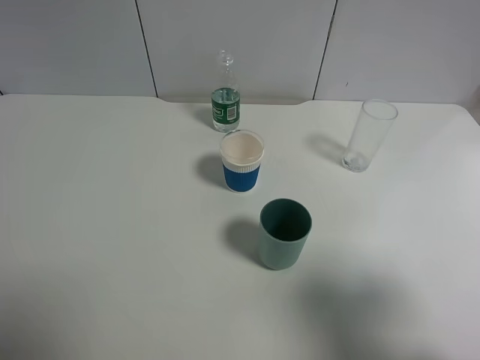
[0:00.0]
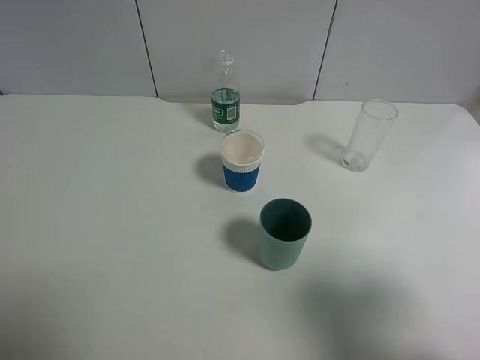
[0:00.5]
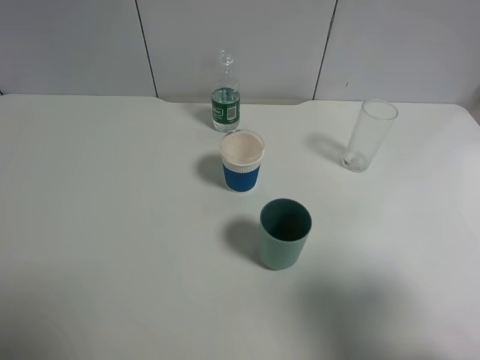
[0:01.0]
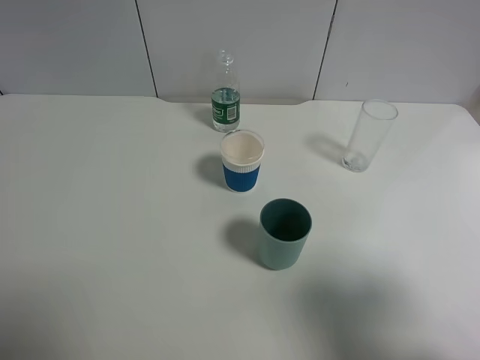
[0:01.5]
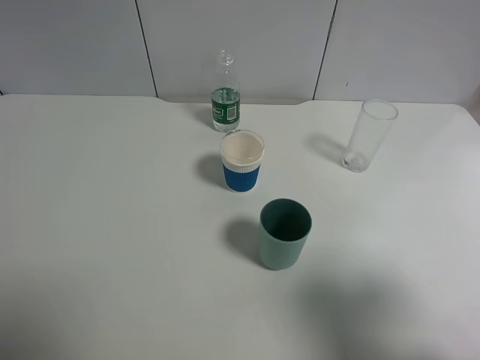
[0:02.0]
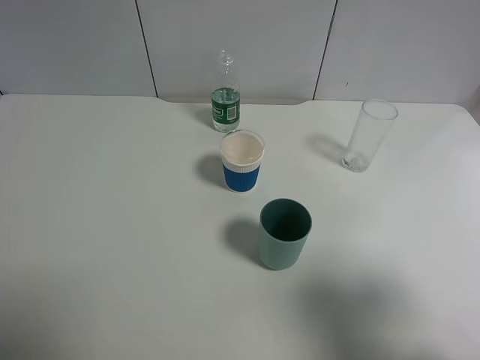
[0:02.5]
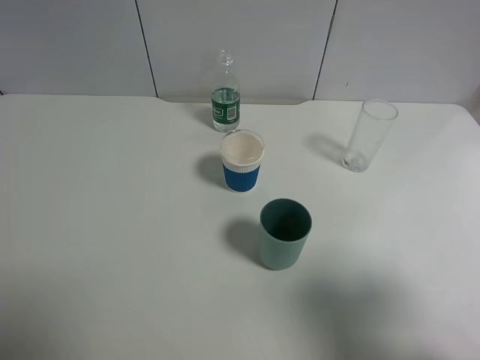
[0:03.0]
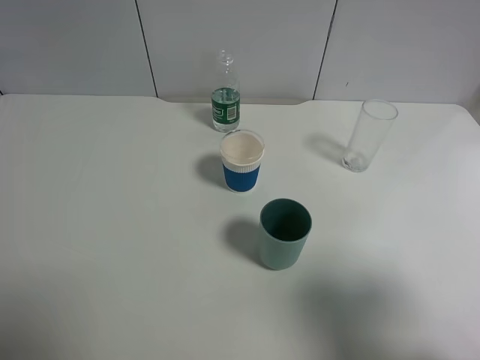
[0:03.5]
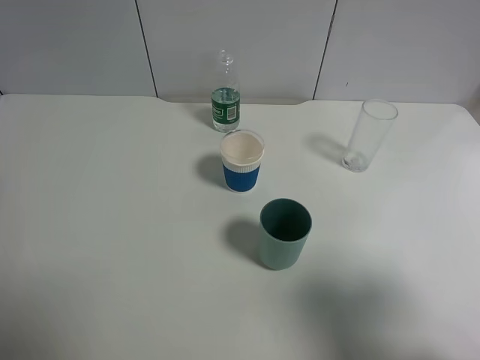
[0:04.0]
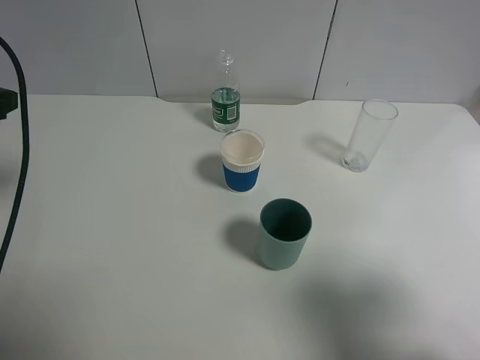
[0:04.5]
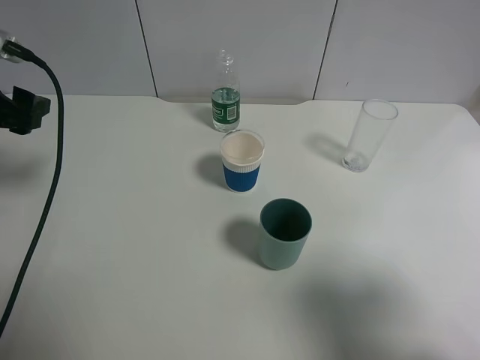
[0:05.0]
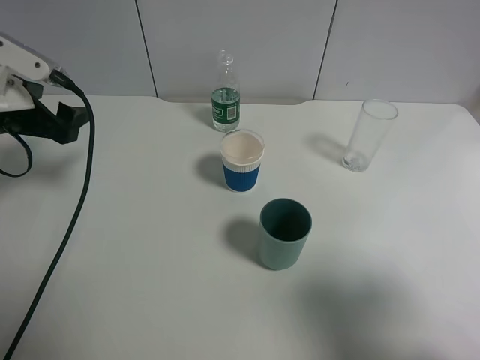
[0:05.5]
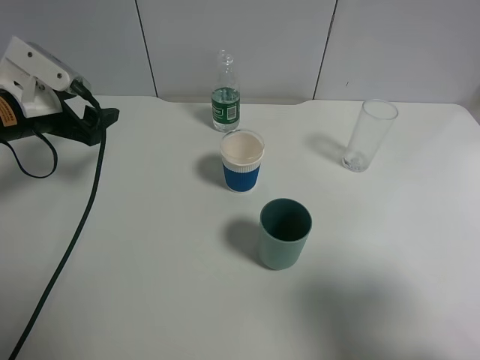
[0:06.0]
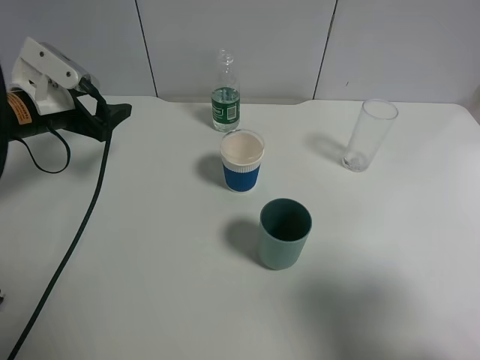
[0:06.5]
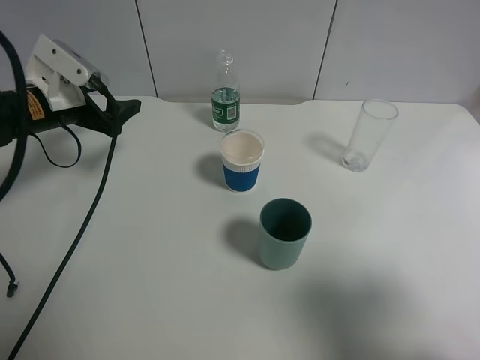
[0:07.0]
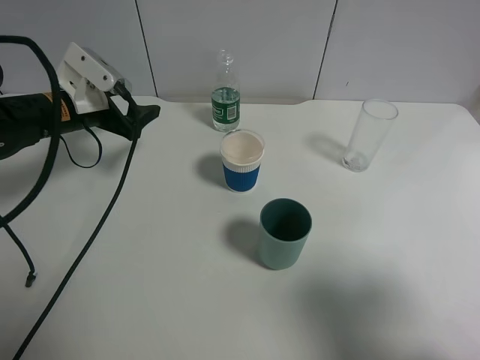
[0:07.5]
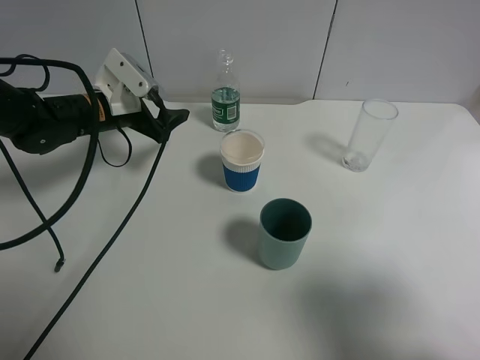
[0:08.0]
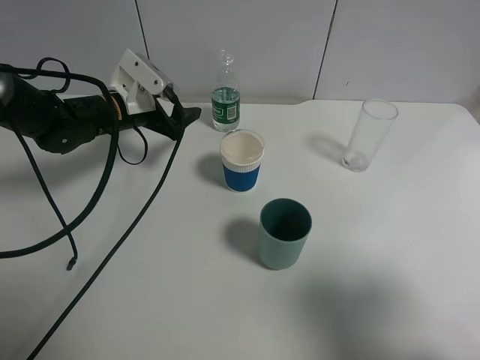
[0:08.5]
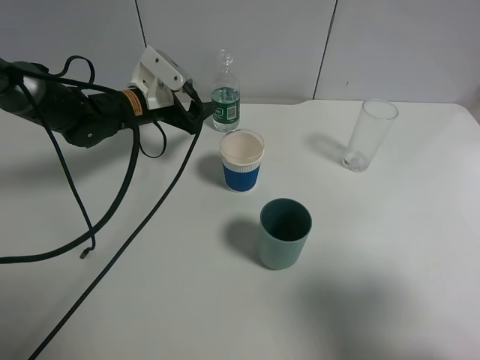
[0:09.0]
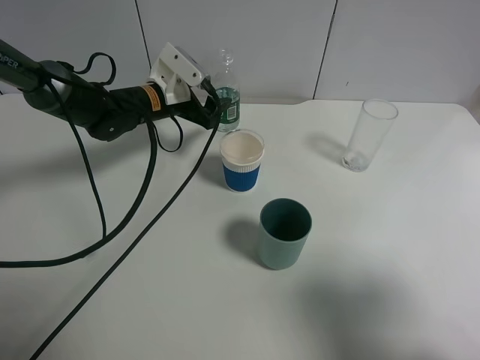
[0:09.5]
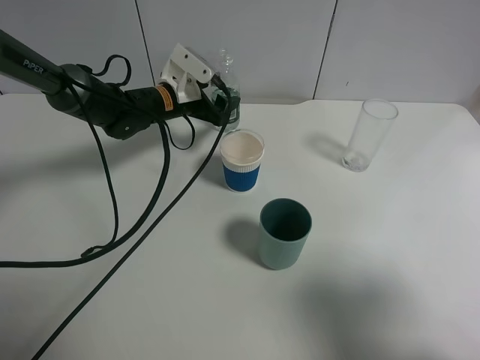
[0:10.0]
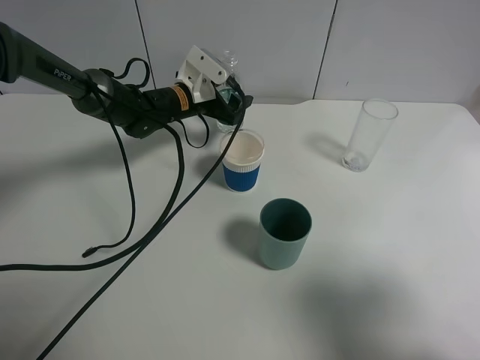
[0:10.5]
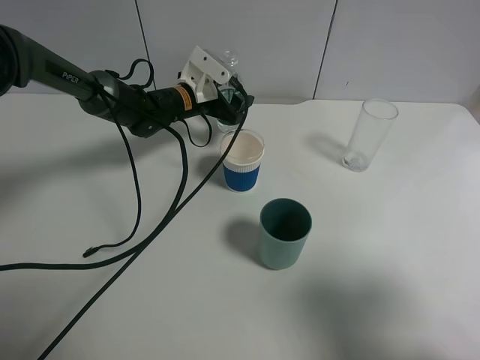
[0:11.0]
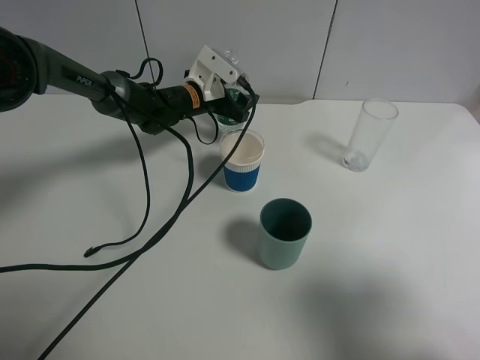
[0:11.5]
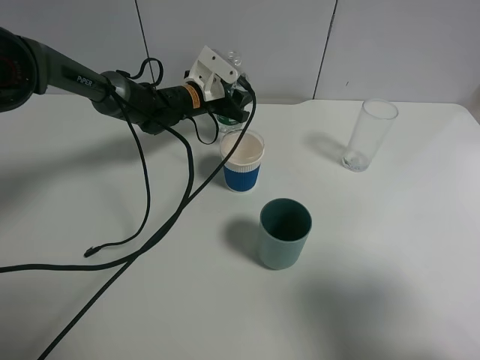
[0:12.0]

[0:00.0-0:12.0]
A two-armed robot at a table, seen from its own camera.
Task of the whole recording: use a gripper to hold the bottle of the drink and pour it into a random cup.
Step, 0.0 to 12.0 s: Grasp the mineral water bottle with the left gripper.
0.0 to 2.0 s: Both grippers stay about where they are.
4.0 to 6.0 s: The left gripper shifts some 20 cm forward and downward.
6.0 to 8.0 s: The left gripper goes approximately 10 cm to the right and forward.
8.0 to 10.0 s: The left gripper goes about 10 cm to the right and forward.
10.0 to 12.0 s: The left gripper ends up roughly 5 cm from where it was, and closes its fingers.

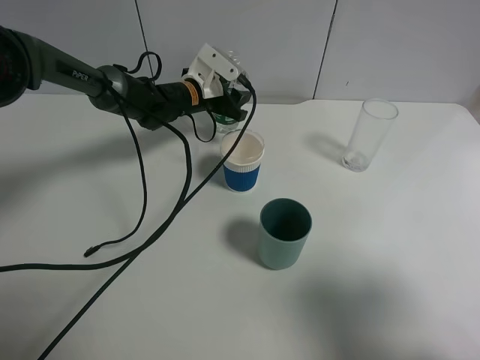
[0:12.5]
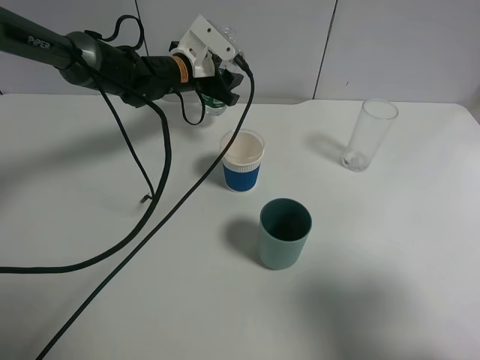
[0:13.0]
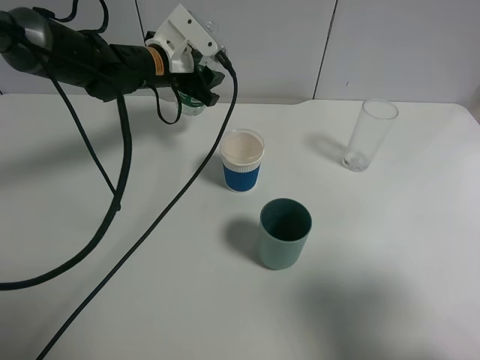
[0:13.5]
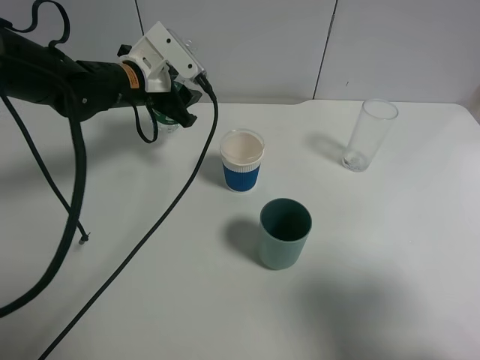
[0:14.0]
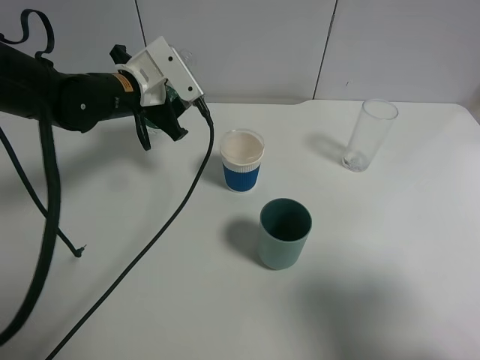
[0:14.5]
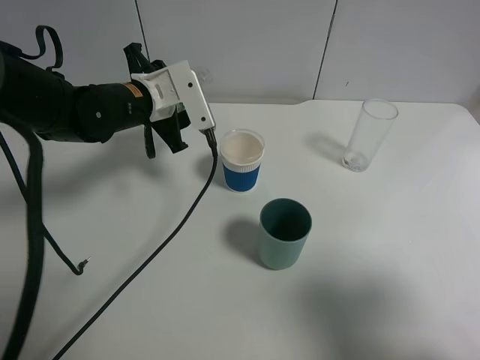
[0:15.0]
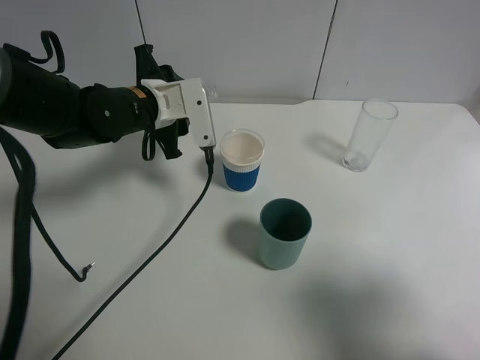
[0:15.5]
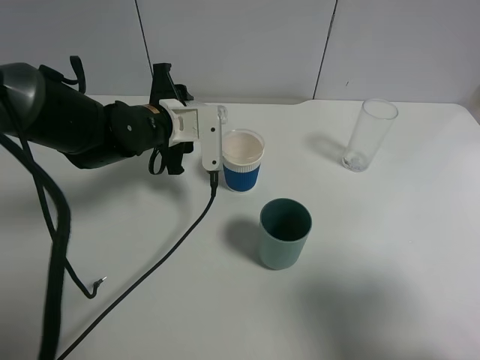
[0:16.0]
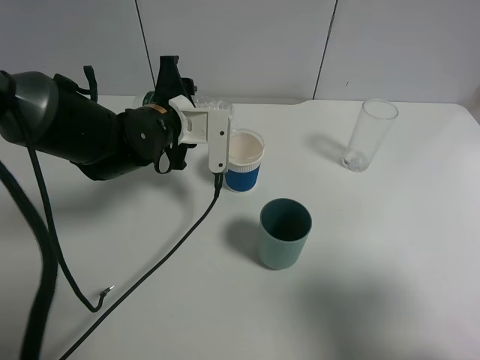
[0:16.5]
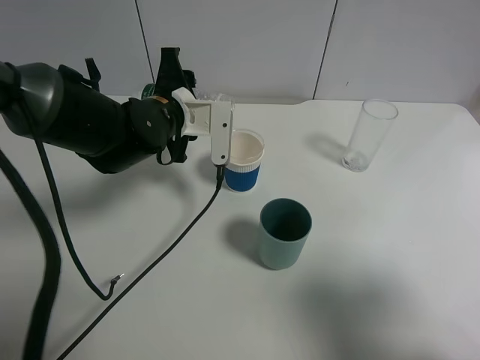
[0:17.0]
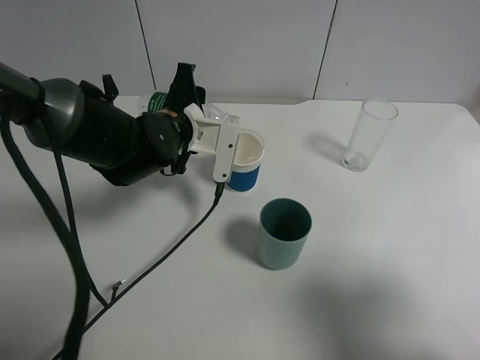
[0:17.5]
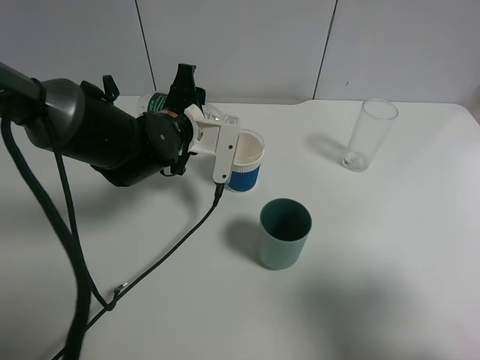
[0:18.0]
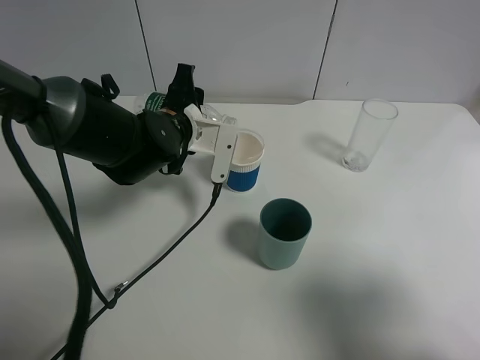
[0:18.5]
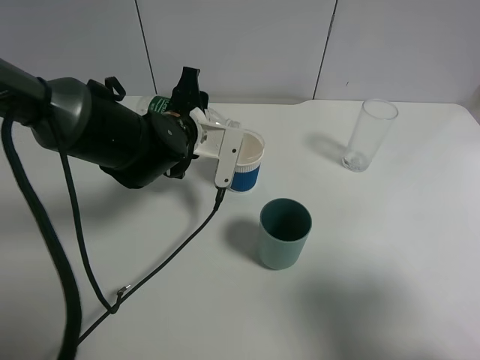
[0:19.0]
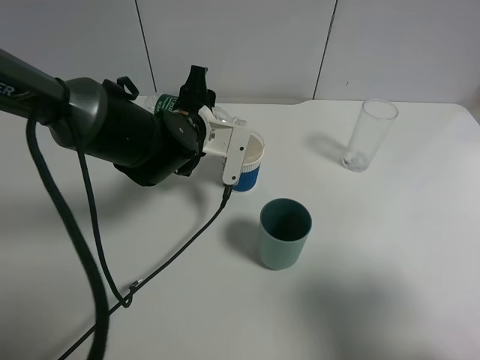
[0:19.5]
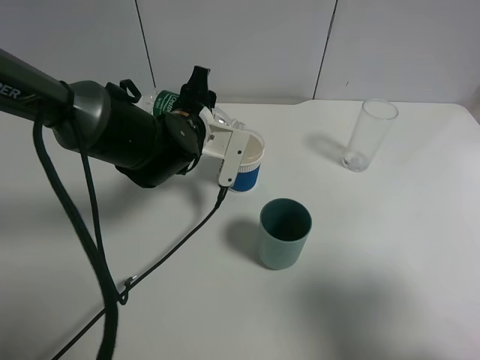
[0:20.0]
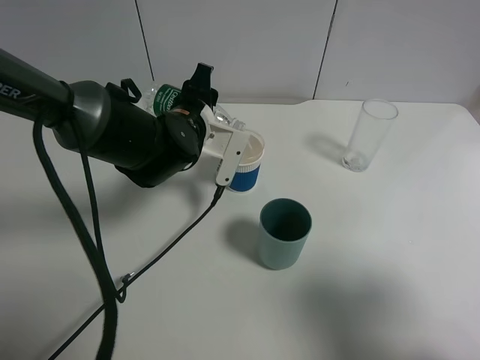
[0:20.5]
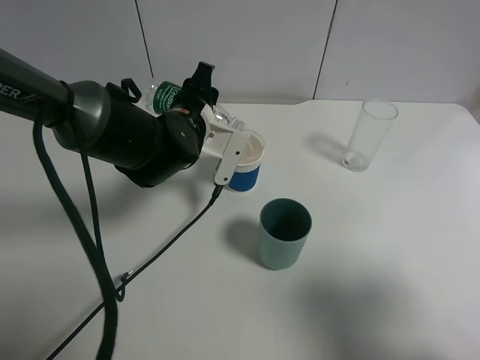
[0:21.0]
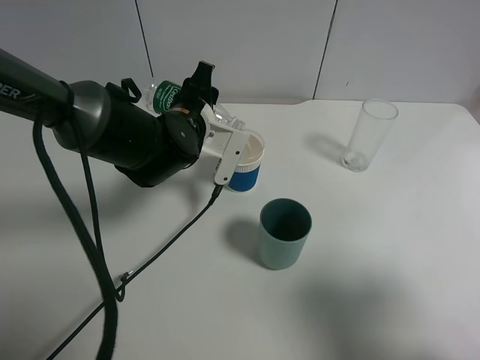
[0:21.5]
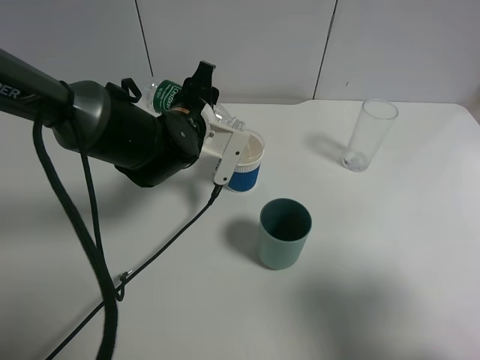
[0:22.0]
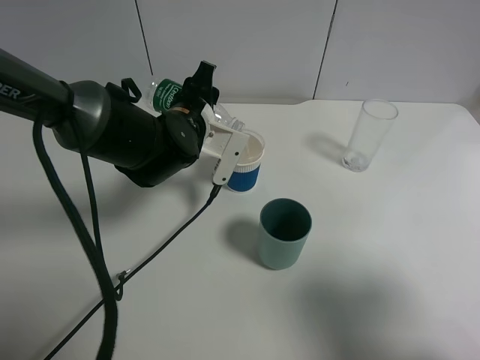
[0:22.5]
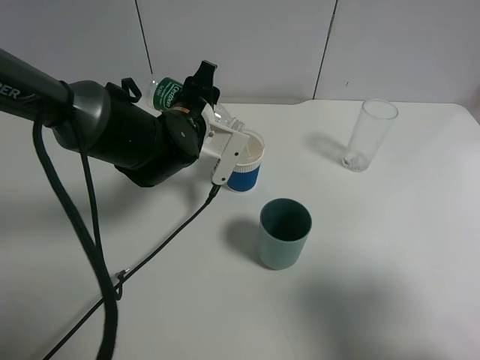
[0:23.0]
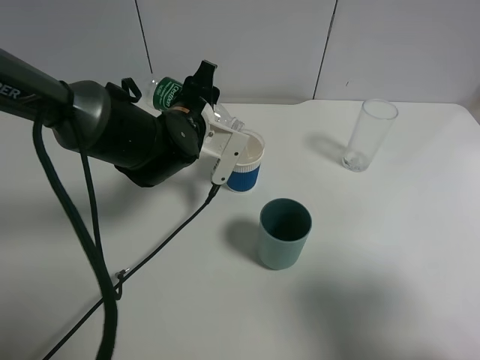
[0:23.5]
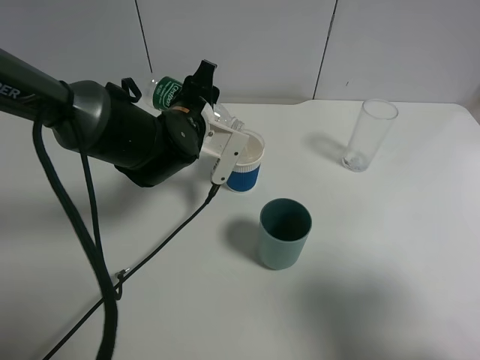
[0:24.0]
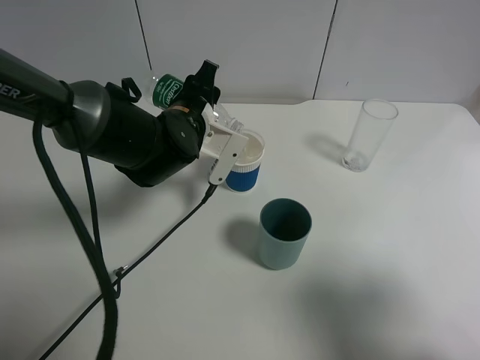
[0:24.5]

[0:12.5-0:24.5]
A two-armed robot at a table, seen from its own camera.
Task of the whole recording: use a gripper to hold the bottle of the drink and pour it into a random cup.
12.5 to 14.5 s: The left gripper shifts about 15 cm backward, upward and to the left.
14.5 to 16.5 s: The left gripper shifts by about 5 cm.
16.5 to 18.5 s: There are only small adjustments of the grippers.
18.5 to 20.5 s: The grippers stay close to where they were, moving slightly.
20.5 to 22.5 s: Both grippers stay about where they are.
22.5 to 24.5 s: Neither gripper changes place.

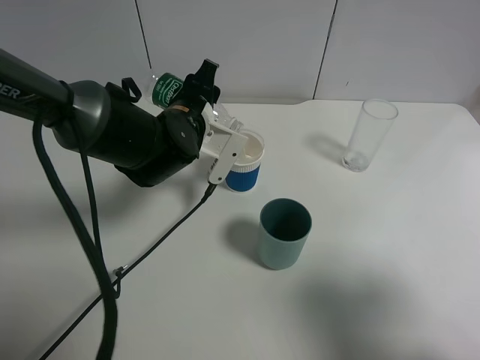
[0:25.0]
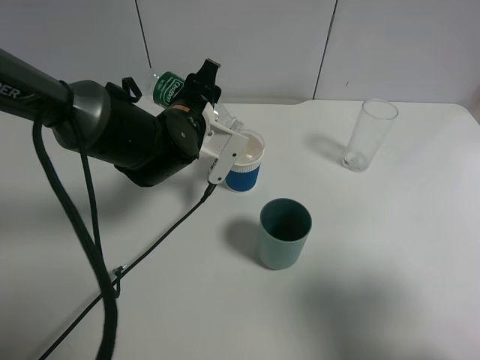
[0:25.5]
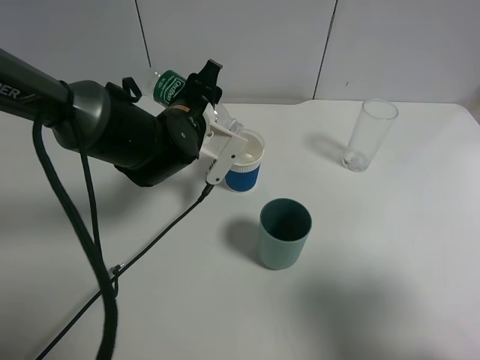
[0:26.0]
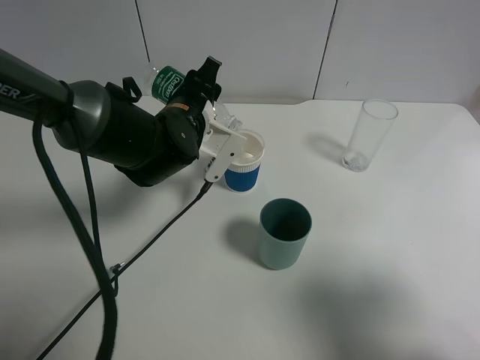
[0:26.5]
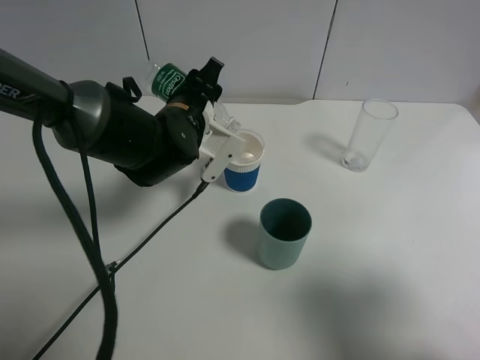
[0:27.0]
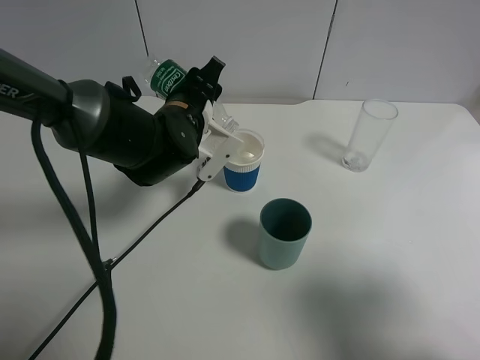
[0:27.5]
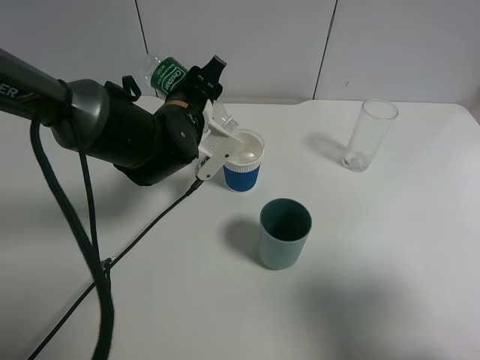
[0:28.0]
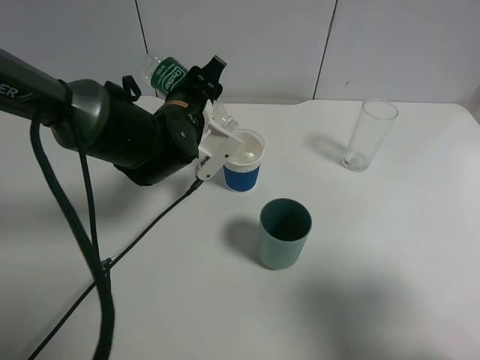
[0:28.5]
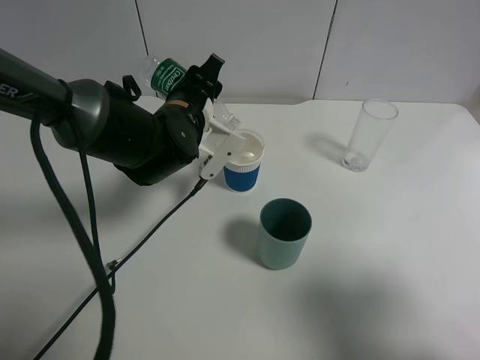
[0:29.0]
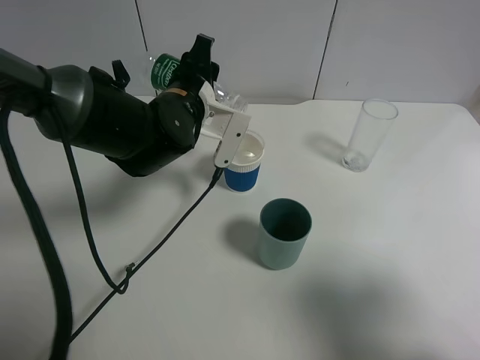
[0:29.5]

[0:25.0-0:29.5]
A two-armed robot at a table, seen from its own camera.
Task of the whole recording: use a gripper to hold the bottle of the drink and pour it into a random cup.
Step, 25.0 to 29.0 s: Pour the mineral water into the glass with the left gripper.
25.0 to 29.5 s: The grippers make only small movements.
